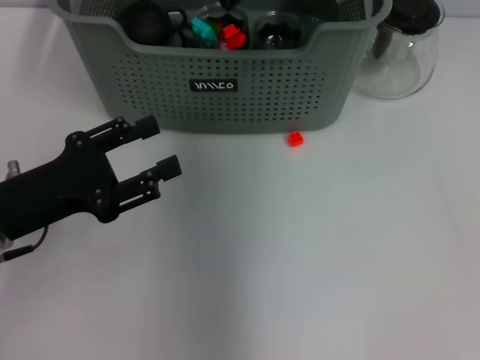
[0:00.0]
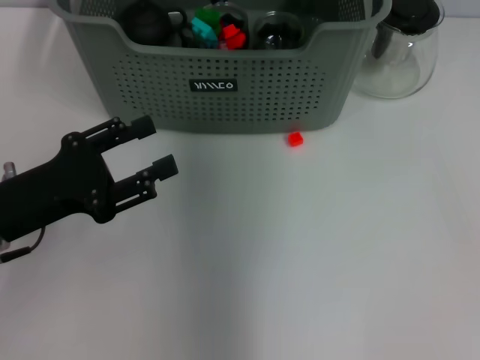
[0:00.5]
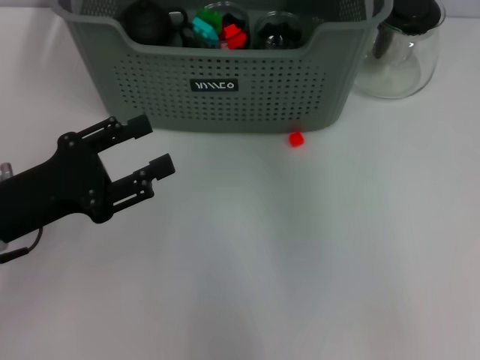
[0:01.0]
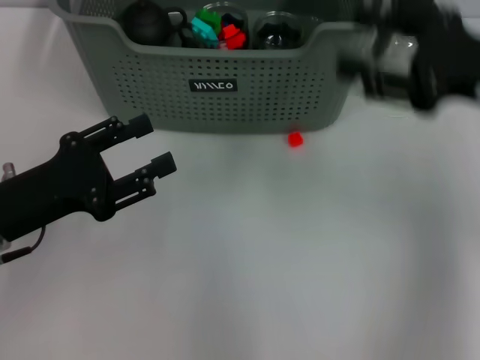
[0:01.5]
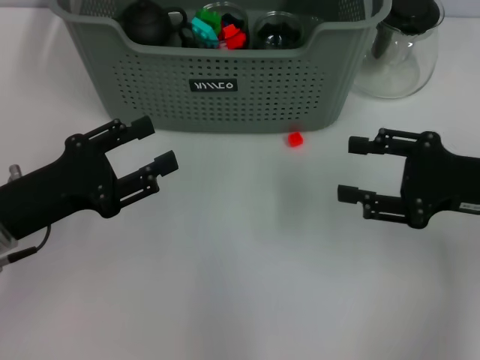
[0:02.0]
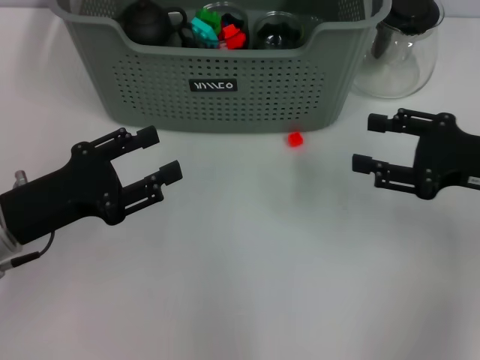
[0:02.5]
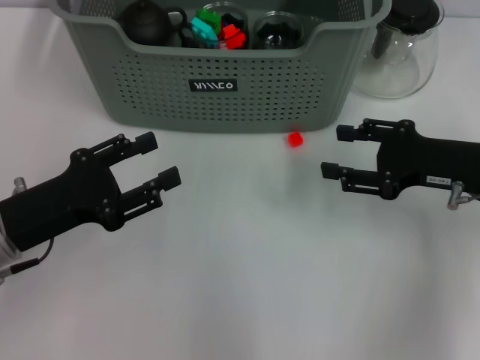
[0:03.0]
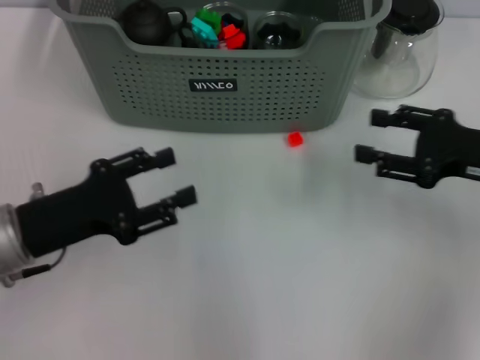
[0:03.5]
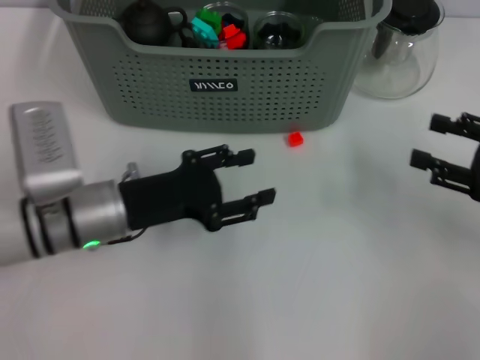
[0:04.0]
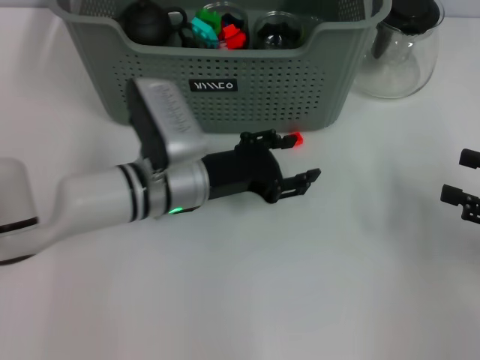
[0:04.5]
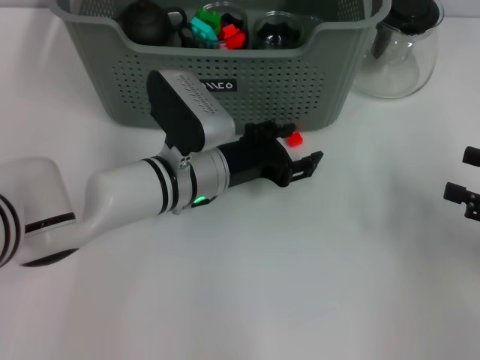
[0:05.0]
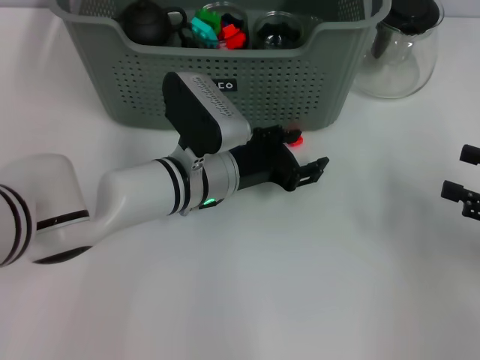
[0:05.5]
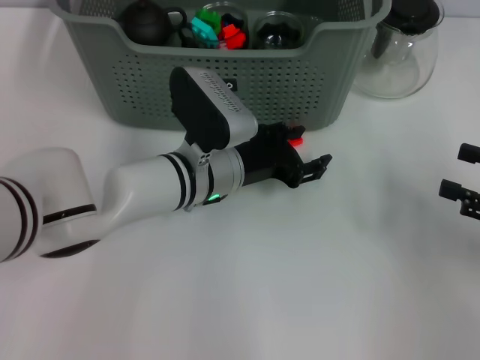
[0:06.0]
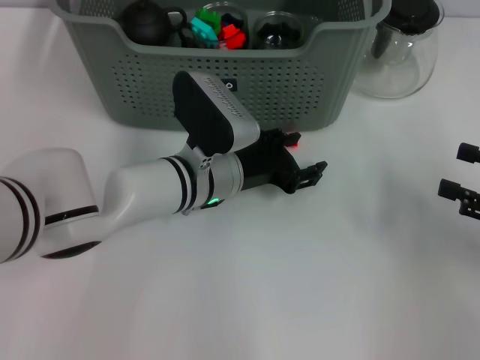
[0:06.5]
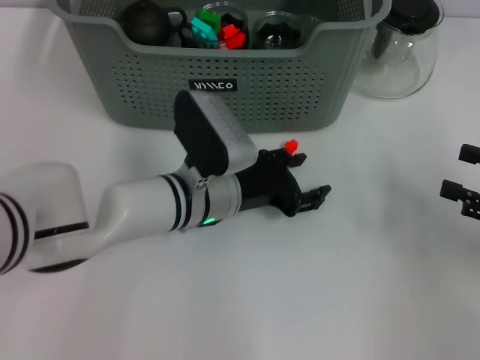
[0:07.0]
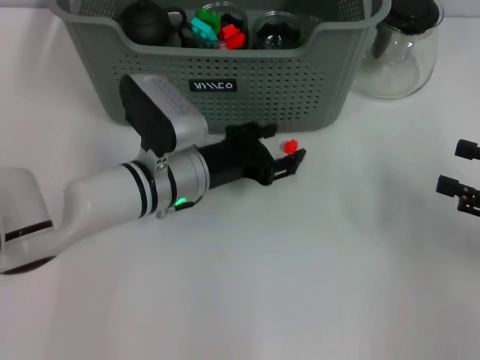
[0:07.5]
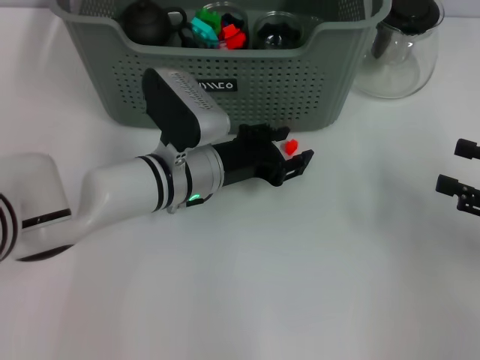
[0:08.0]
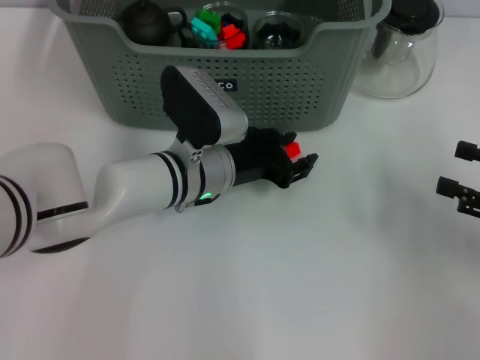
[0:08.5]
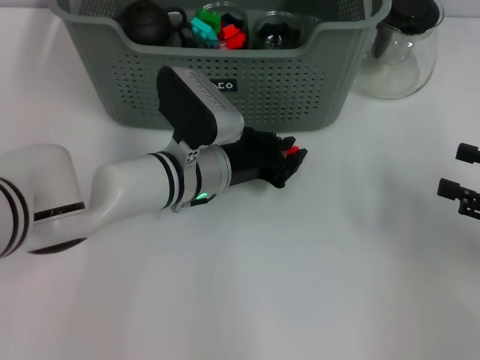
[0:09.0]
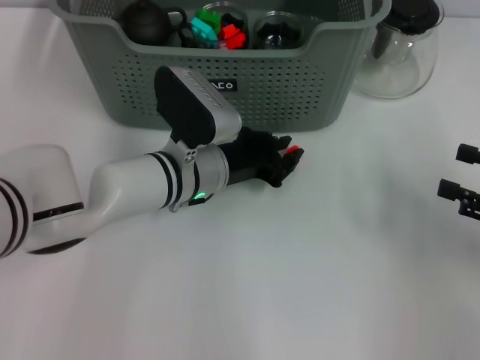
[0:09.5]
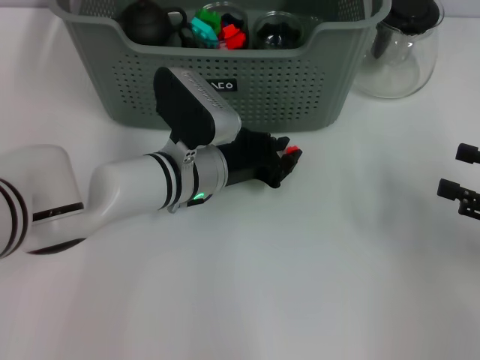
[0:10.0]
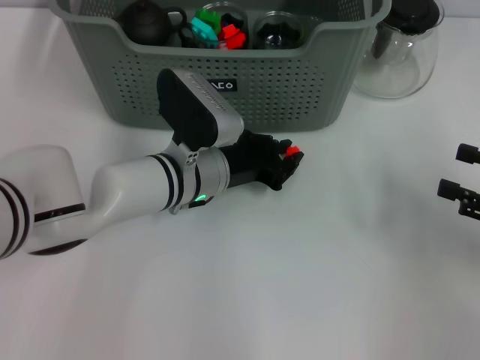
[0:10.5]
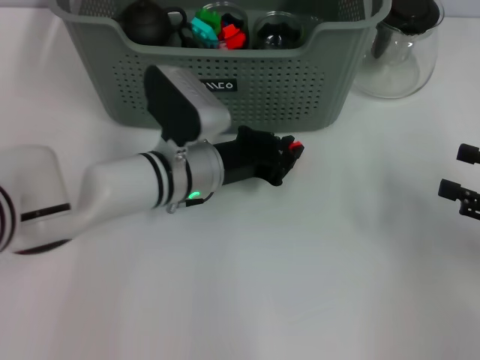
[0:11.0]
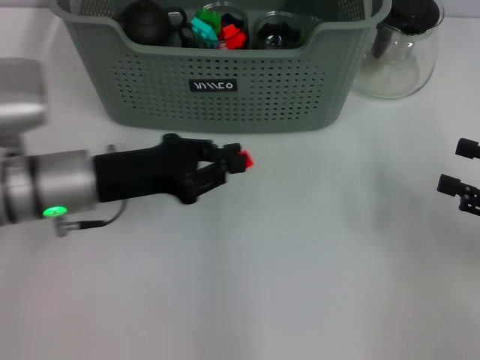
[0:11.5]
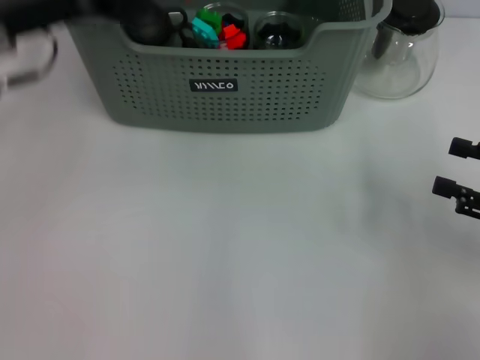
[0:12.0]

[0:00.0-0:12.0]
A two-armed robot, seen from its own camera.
Task of the whole recording: pick up the teacup on the table and place it into the storage bin, pick up the block on the table and place it into the storage bin.
Step, 0:01.0 to 0:10.5: Grasp the orange block with left gripper.
0:00.0 to 0:02.0: The right gripper travels to the right, backward and downward by roughly 35 cm, and opens its fingers.
0:02.0 to 0:04.0: The grippers both shift to the right by approximately 5 cm.
0:04.0 to 0:06.0: The left gripper travels to the right and forward by roughly 15 cm.
0:06.0 to 0:08.0: There are only small adjustments of the grippers.
0:08.0 to 0:10.0: The left gripper closes up.
0:10.0 to 0:12.0: The left gripper shifts approximately 25 cm upward and to the left.

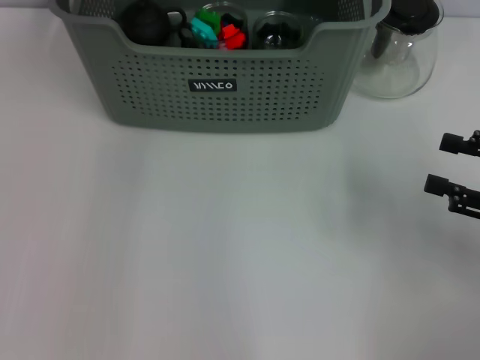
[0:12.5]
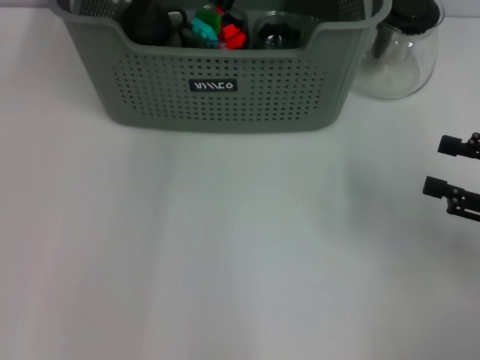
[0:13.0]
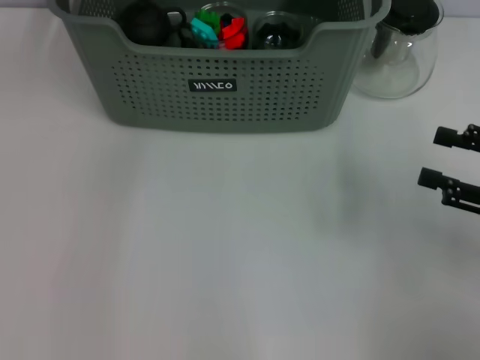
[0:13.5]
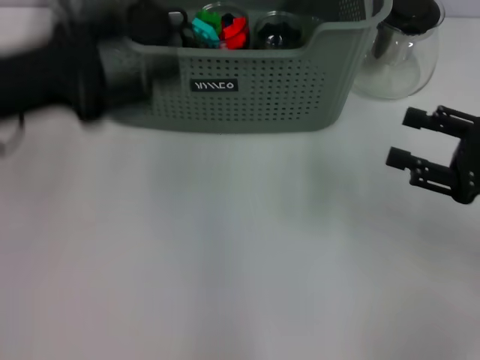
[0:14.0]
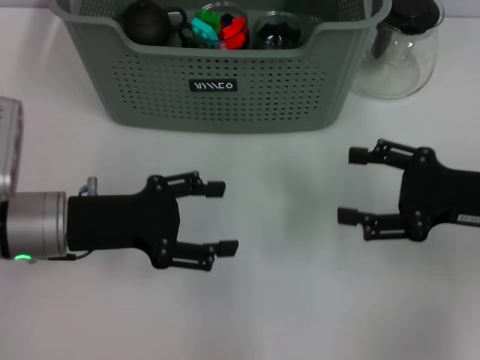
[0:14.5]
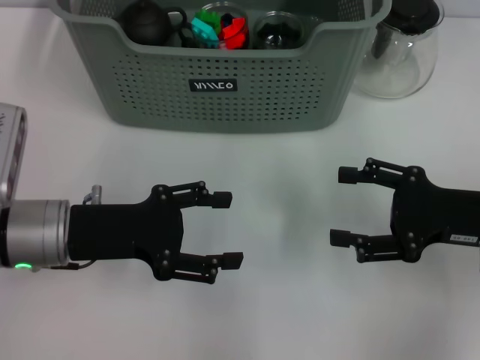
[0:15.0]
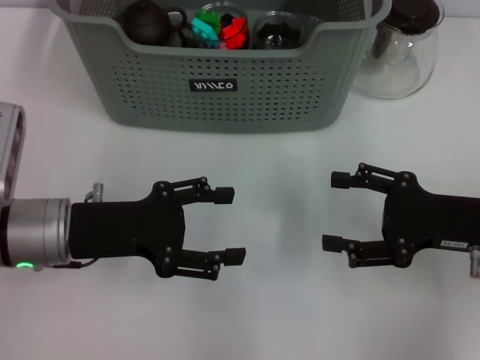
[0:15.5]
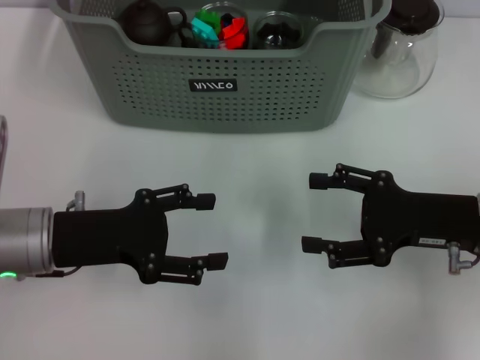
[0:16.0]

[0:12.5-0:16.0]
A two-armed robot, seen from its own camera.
Task of the whole recording: pick up the teacup on the table and place it into the storage bin, pick up the block on the table and place it into the storage bin.
0:12.5 to 0:14.5: The right gripper moves to the left, about 5 cm; the left gripper shifts approximately 30 cm backward, downward and to the left, and opens up.
0:14.5 to 0:16.0: The grippers make only small movements.
